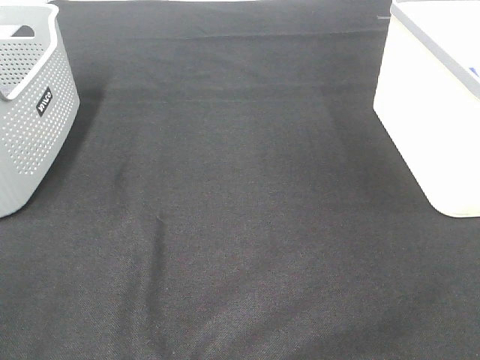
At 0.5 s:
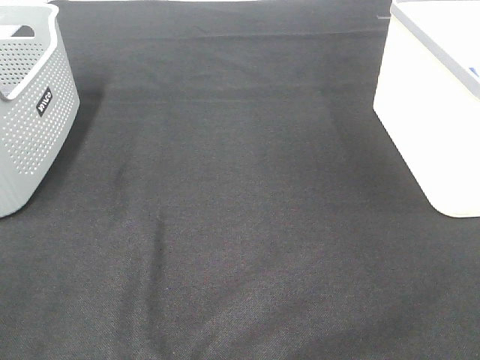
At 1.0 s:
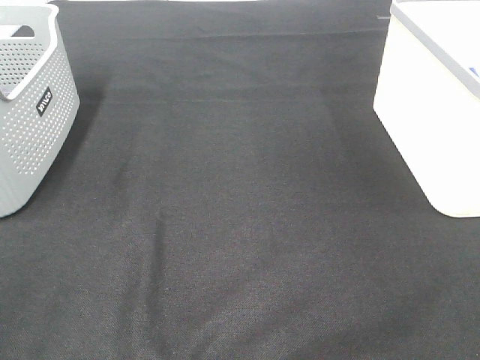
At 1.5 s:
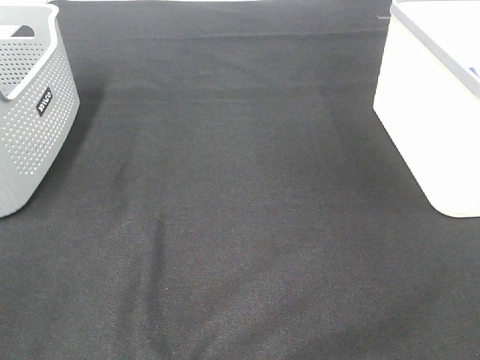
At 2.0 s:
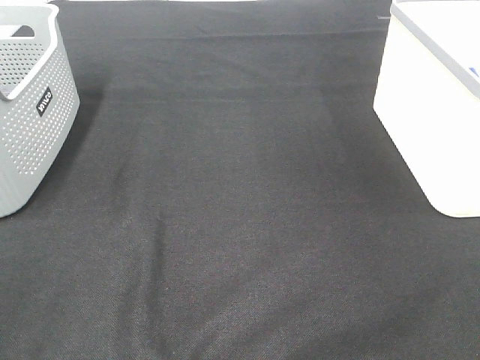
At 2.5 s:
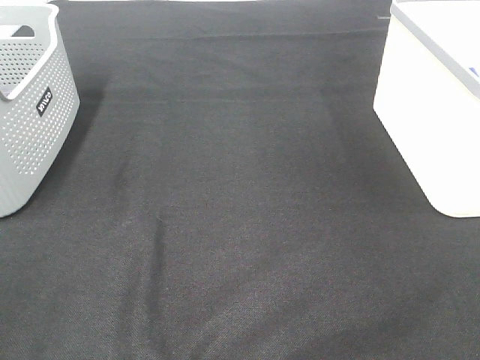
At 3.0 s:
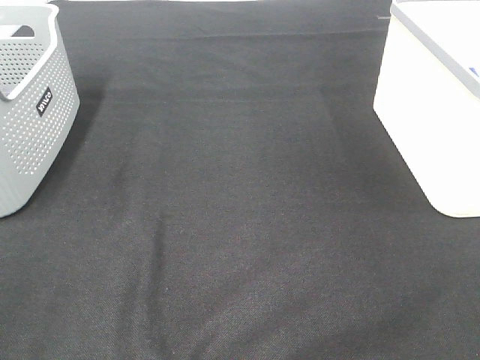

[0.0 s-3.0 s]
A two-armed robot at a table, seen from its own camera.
1.5 to 3.0 s: Neither gripper changes place.

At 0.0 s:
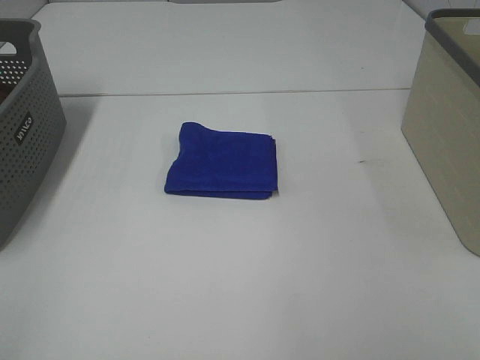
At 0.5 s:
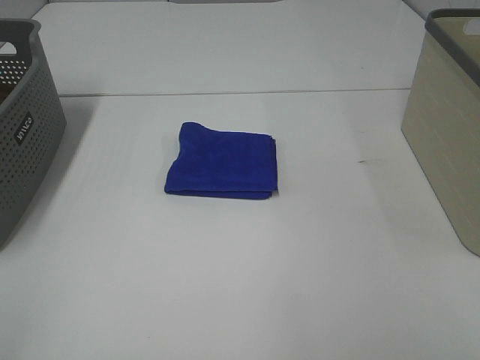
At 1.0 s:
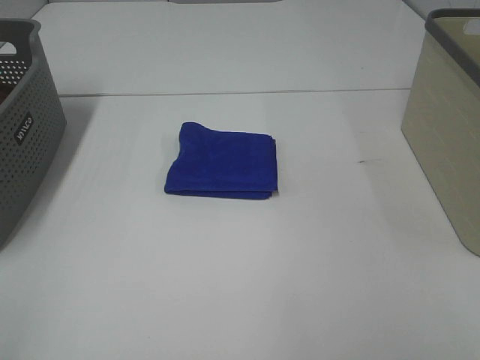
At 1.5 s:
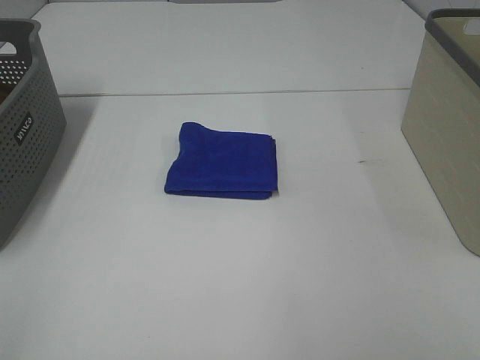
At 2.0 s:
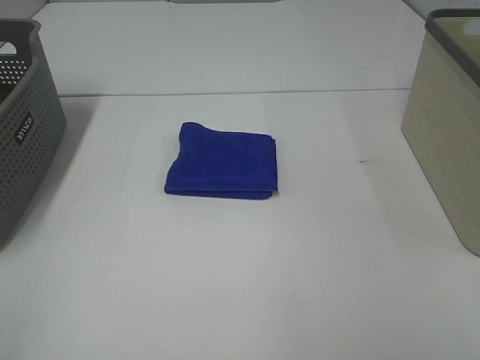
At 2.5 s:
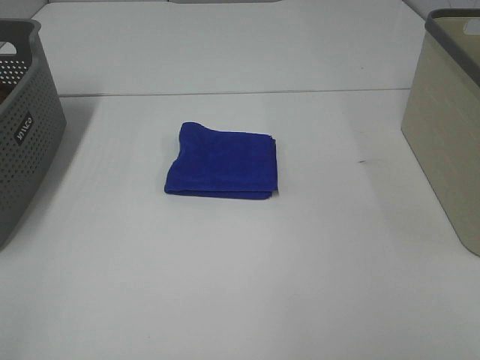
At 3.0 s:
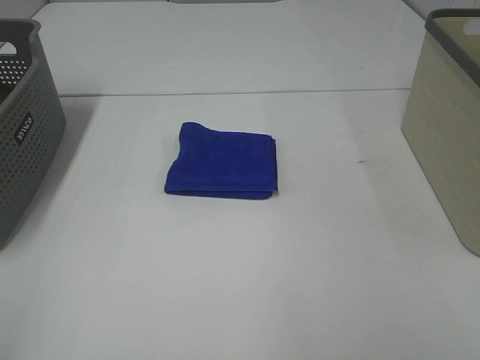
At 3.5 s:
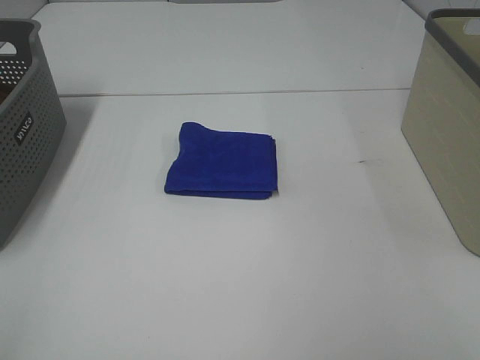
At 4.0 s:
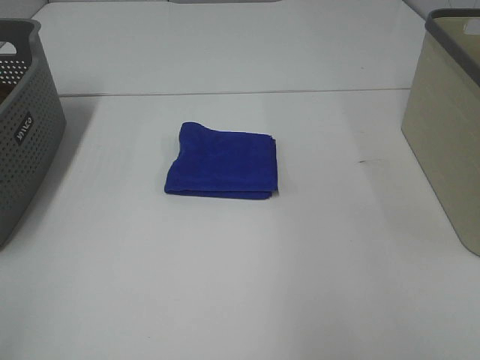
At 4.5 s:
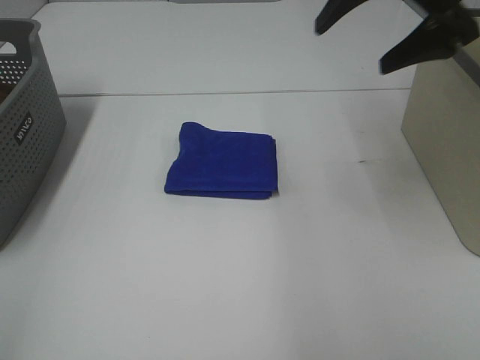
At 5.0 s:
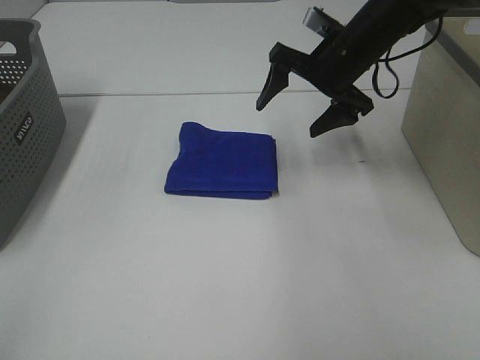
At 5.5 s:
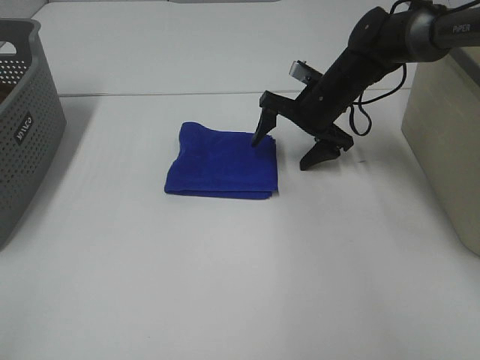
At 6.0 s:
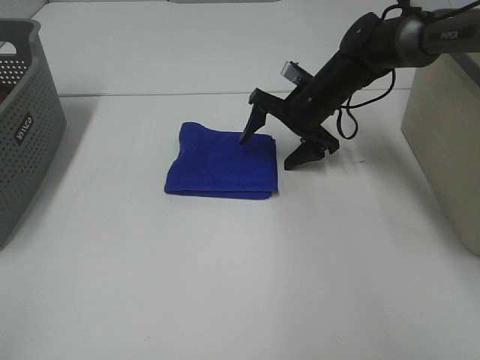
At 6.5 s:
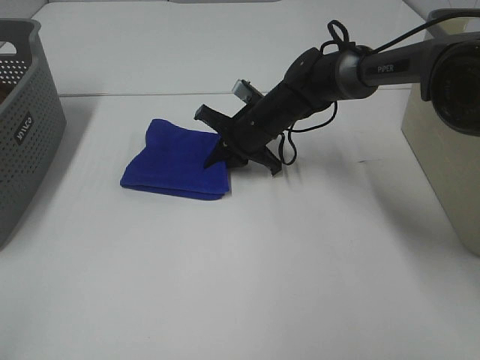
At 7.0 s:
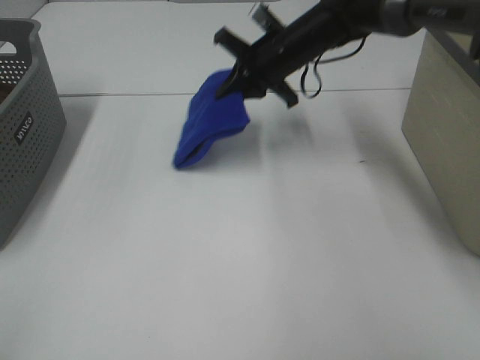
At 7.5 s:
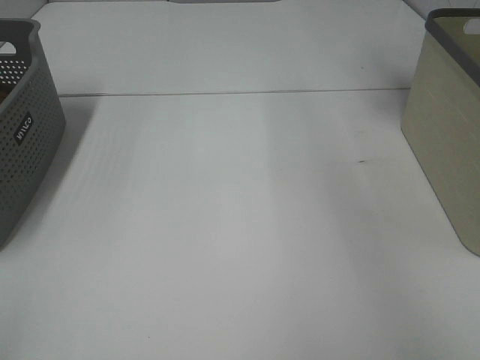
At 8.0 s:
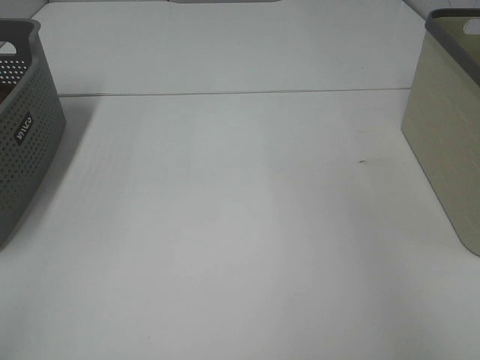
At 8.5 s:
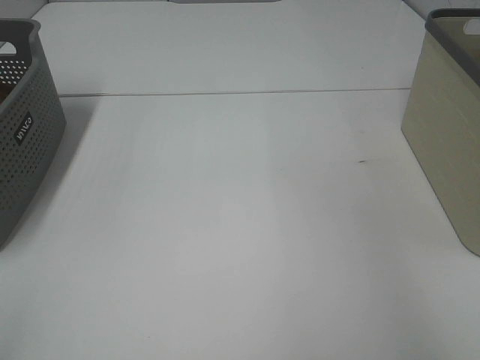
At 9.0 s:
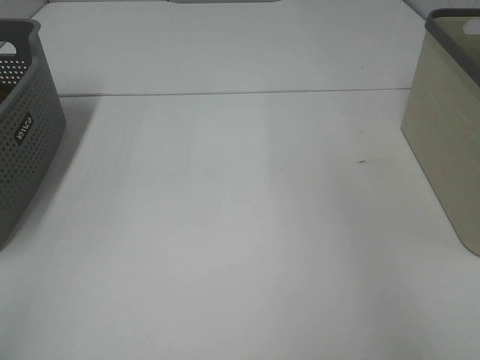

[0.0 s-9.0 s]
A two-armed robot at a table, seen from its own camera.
Step, 0.0 to 6.5 s: Right hand: grab the folded blue towel.
Step, 7.0 to 8.5 s: Right hand: place the blue towel in right basket.
0.0 to 2.0 s: The two grippers keep their place.
2.0 to 4.5 s: The right gripper shifts roughly 35 cm forward.
4.5 to 7.0 s: The right gripper is displaced forward, downward and to the left by roughly 20 cm, and closes its fingers.
7.0 to 9.0 s: The right gripper goes roughly 35 cm to the right and upward, and opens its fingers.

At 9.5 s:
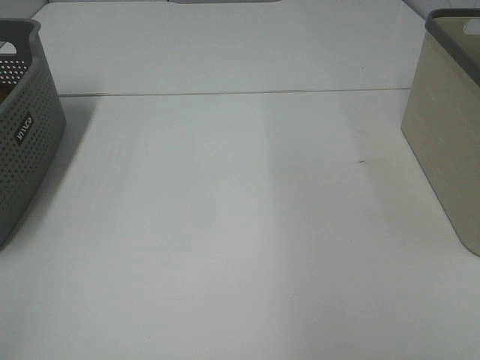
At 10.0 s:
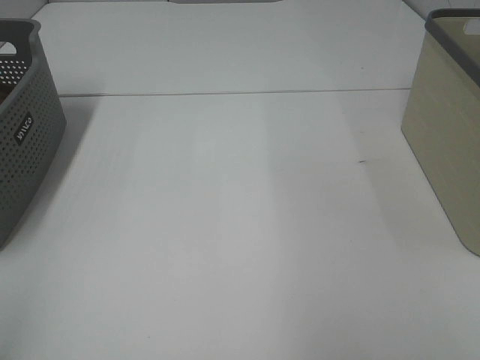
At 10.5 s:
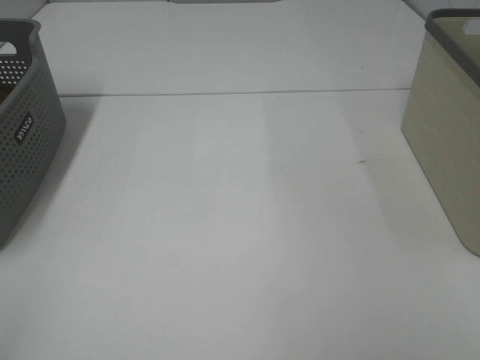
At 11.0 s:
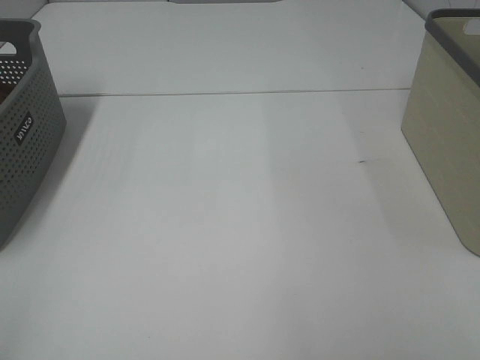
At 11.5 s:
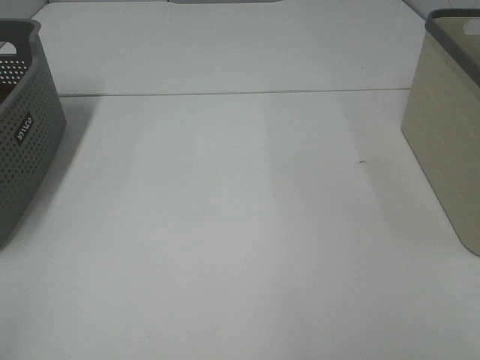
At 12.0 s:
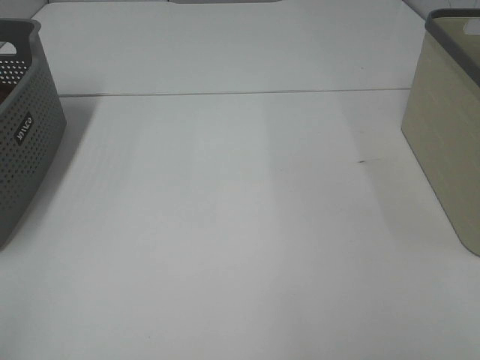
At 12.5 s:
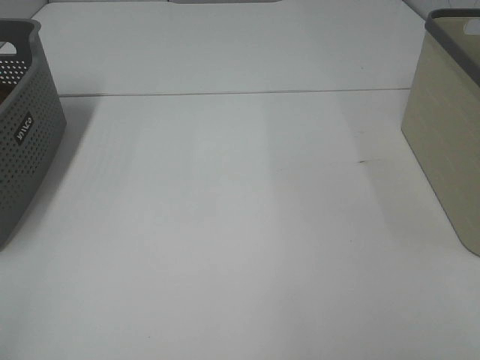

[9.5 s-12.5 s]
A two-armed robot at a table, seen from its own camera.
11.0 to 12.5 s: Neither gripper changes place.

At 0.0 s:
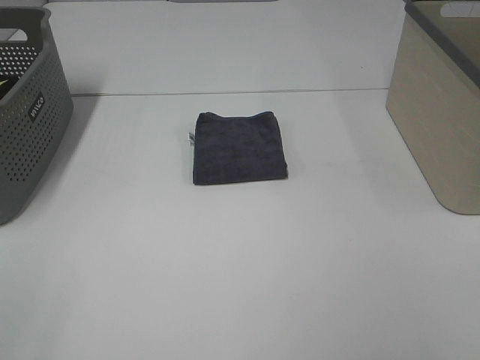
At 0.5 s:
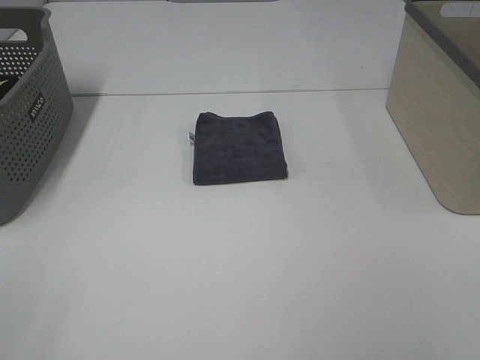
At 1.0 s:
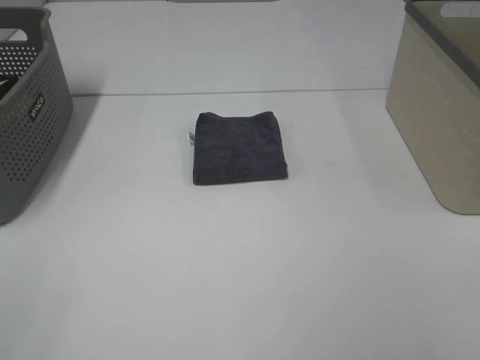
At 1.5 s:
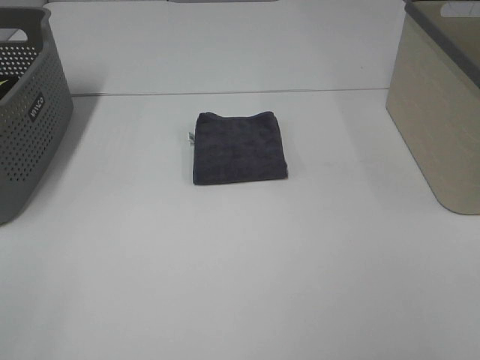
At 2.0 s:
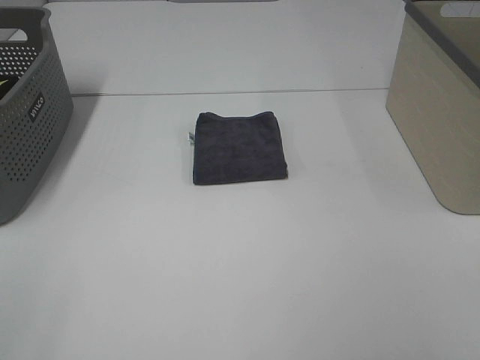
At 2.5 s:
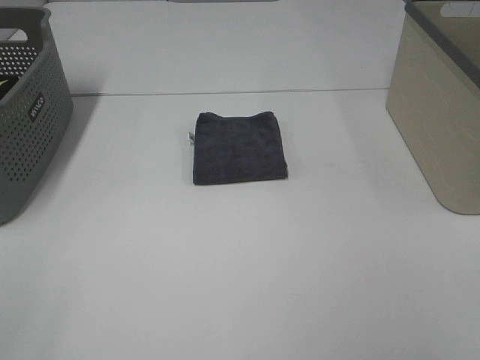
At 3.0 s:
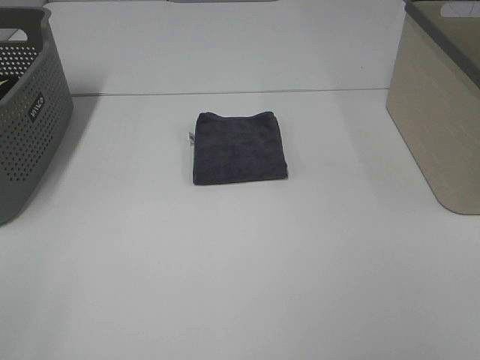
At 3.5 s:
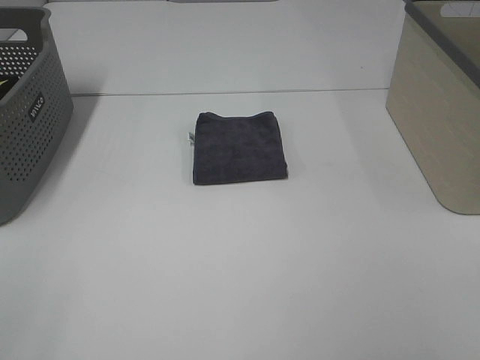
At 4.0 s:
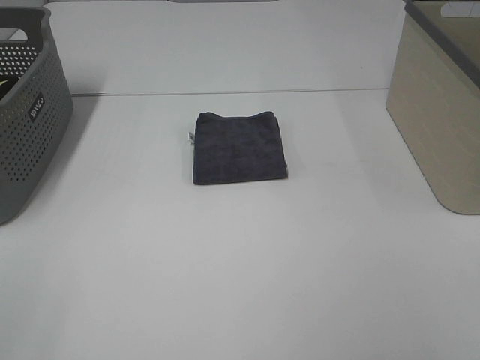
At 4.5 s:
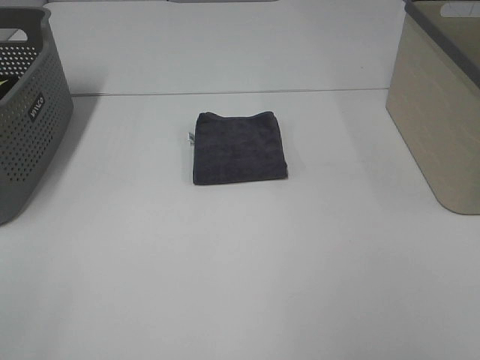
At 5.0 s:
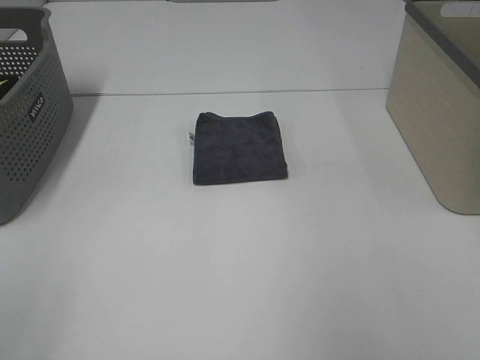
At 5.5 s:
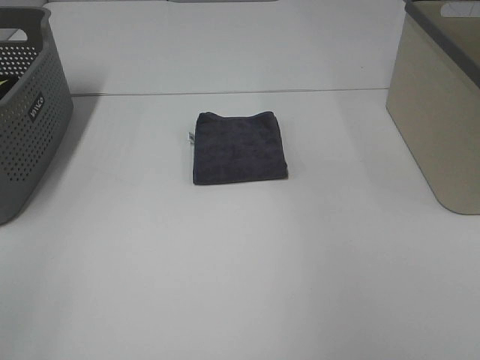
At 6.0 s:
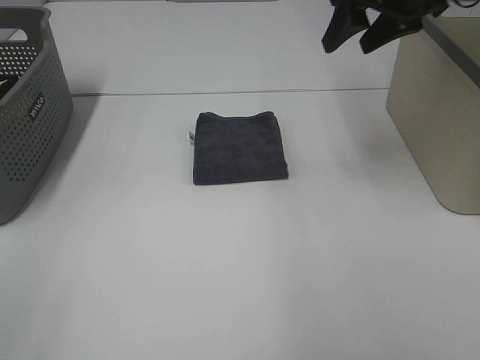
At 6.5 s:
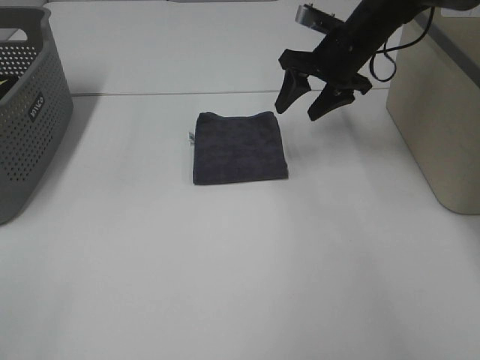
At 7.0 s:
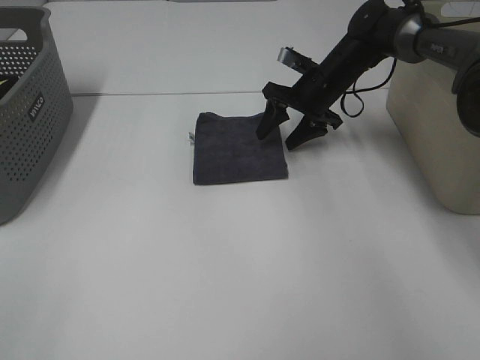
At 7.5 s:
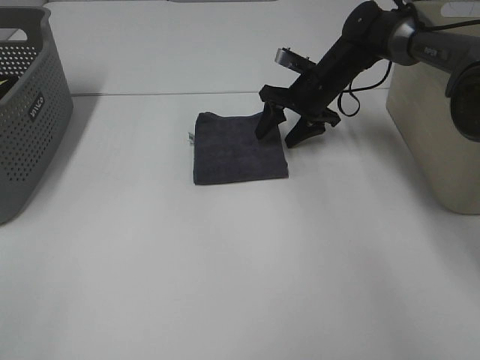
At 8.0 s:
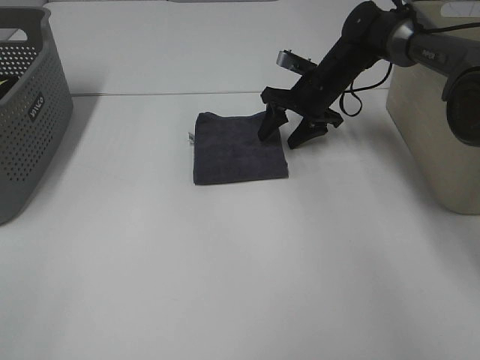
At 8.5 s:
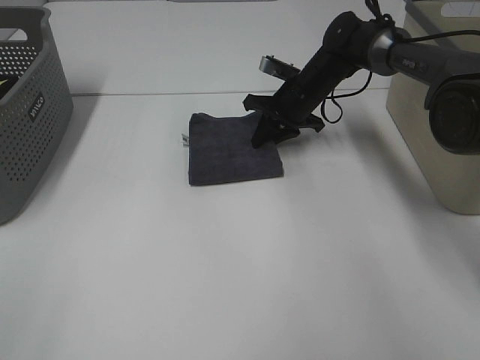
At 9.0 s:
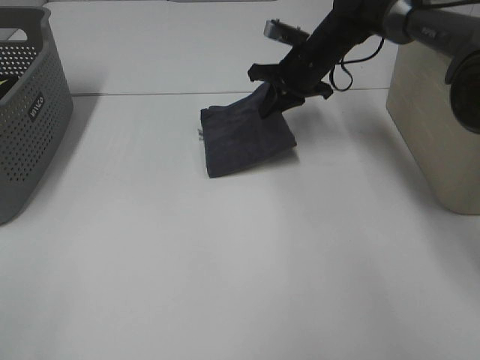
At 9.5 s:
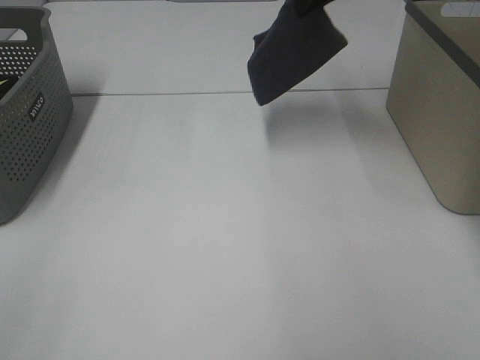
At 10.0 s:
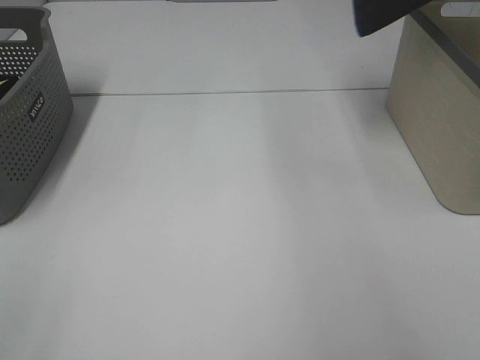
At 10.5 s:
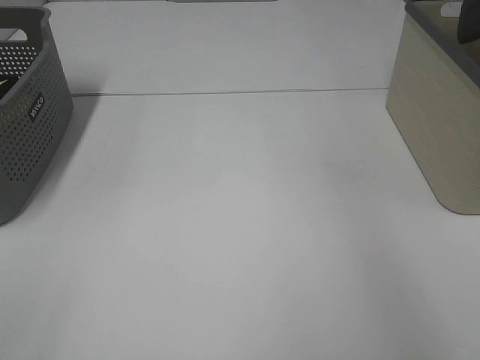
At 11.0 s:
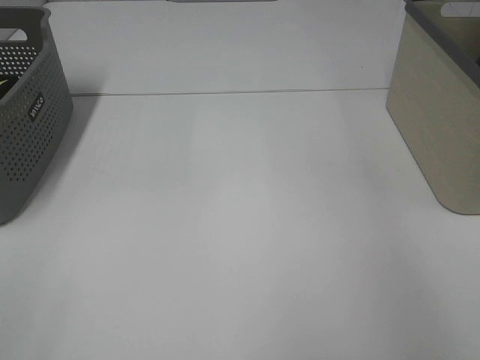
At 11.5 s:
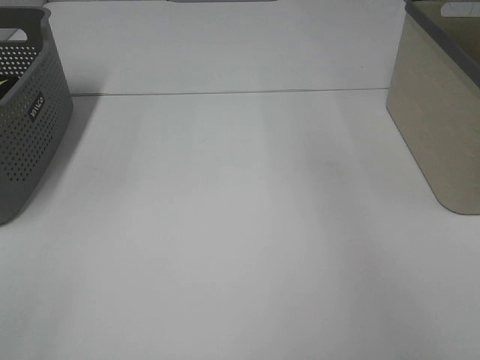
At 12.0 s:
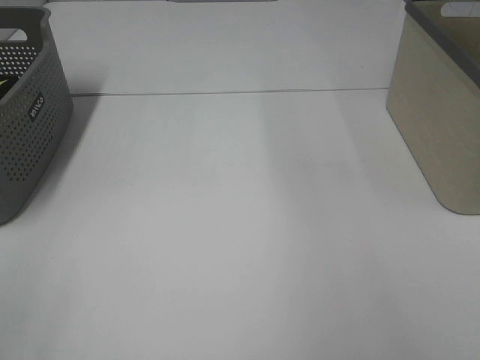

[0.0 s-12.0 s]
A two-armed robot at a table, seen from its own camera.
Step, 0.0 to 8.5 s: Right hand: grab the folded grey towel.
Step, 9.0 to 11.0 s: Right hand: place the grey towel in right basket.
0.0 to 4.0 s: Both grippers stay put.
4.0 to 6.0 s: The right gripper is displaced forward by roughly 40 cm.
6.0 to 8.0 s: The right gripper travels downward and forward by roughly 20 cm.
8.0 to 10.0 s: The right gripper is displaced upward by some 30 cm, and closes its fingers.
10.0 to 12.0 s: The right gripper reaches some 10 cm to the right, then returns, and opens.
